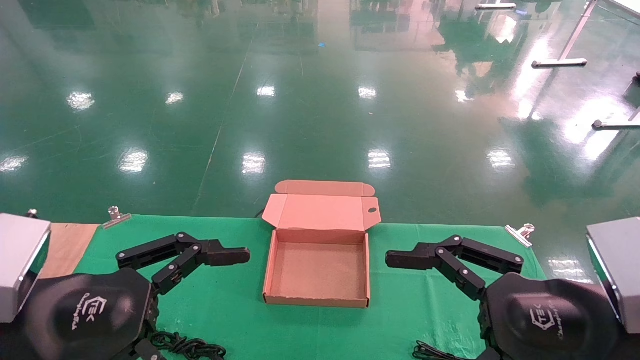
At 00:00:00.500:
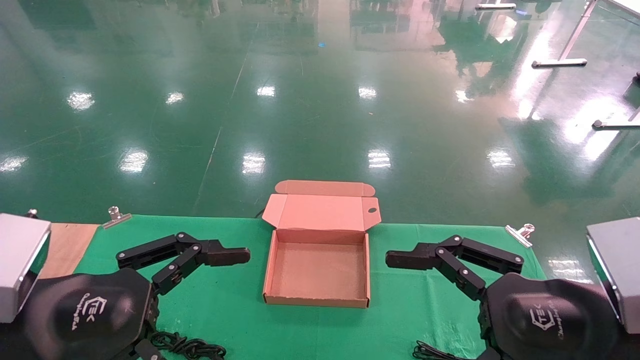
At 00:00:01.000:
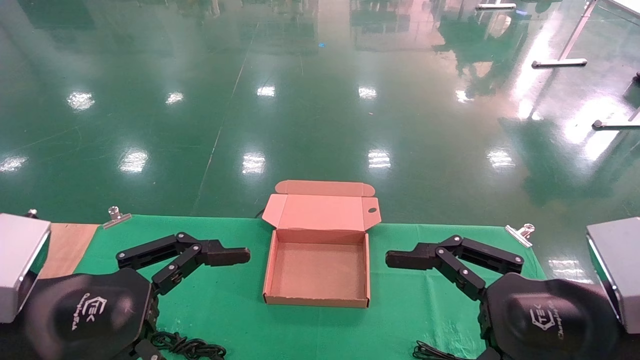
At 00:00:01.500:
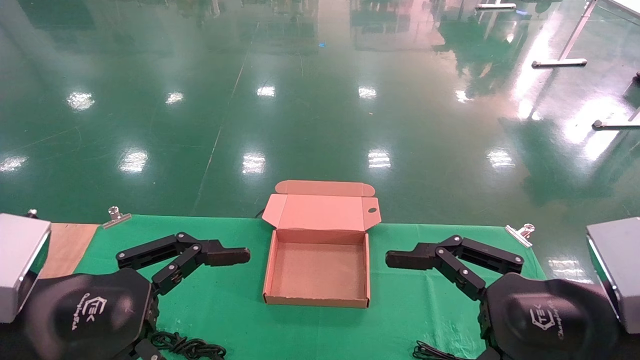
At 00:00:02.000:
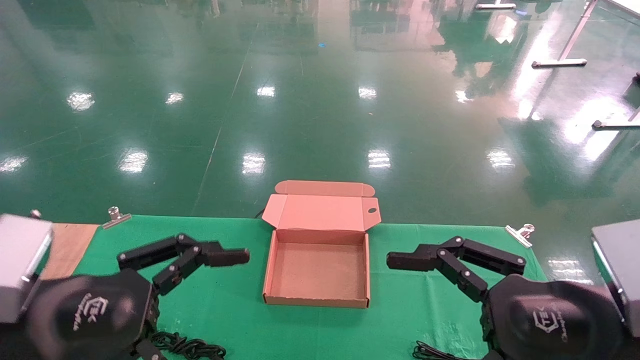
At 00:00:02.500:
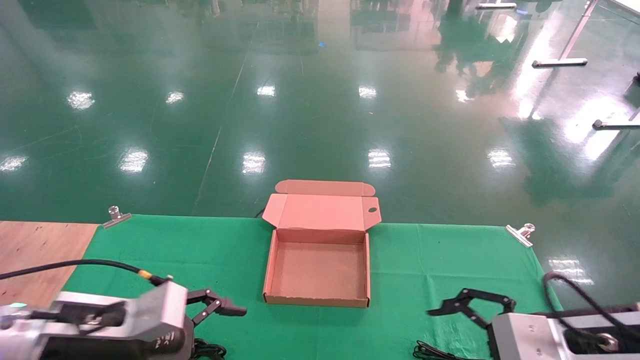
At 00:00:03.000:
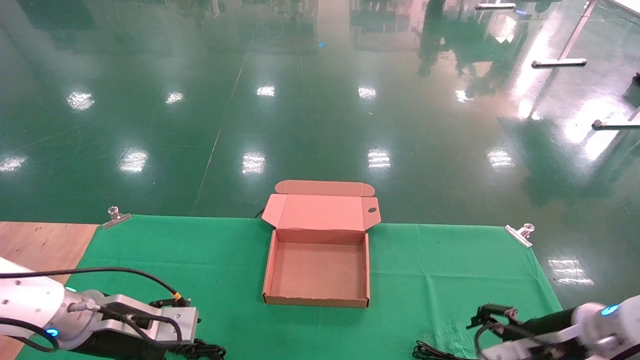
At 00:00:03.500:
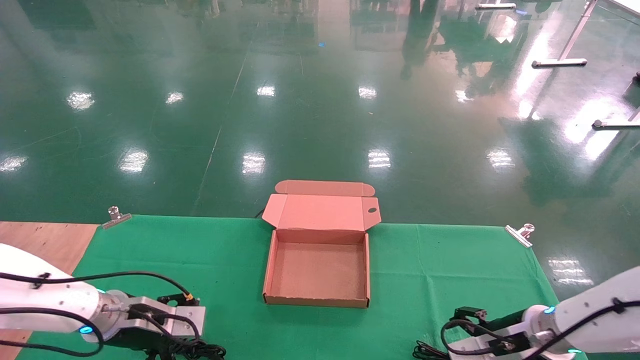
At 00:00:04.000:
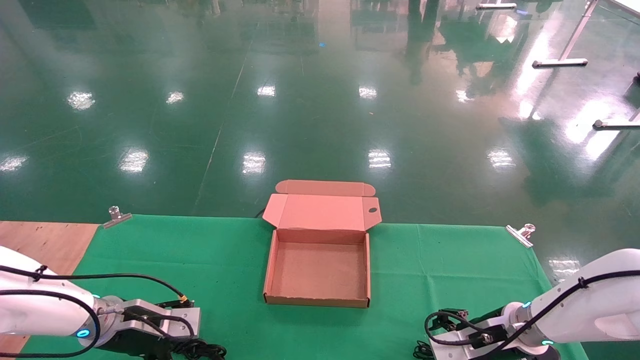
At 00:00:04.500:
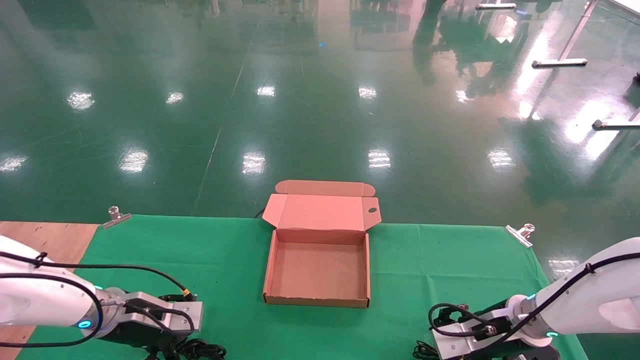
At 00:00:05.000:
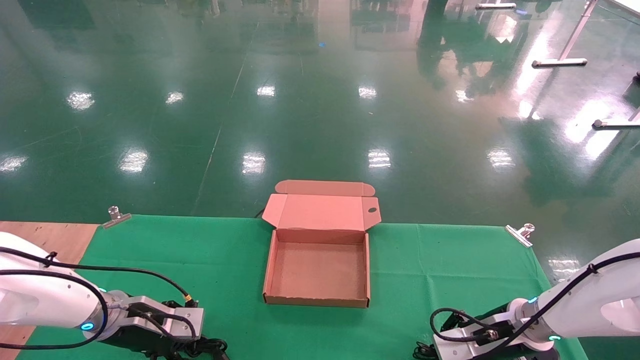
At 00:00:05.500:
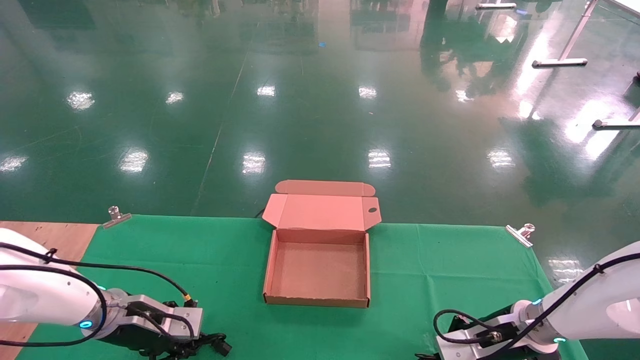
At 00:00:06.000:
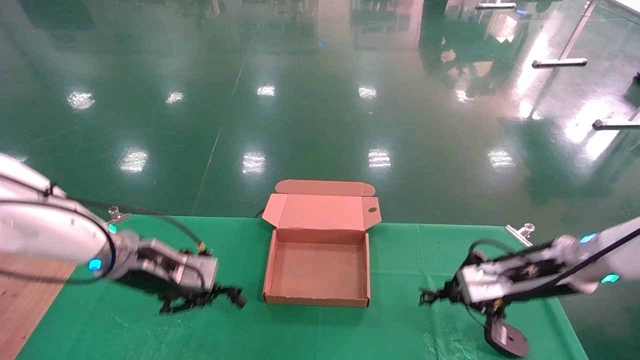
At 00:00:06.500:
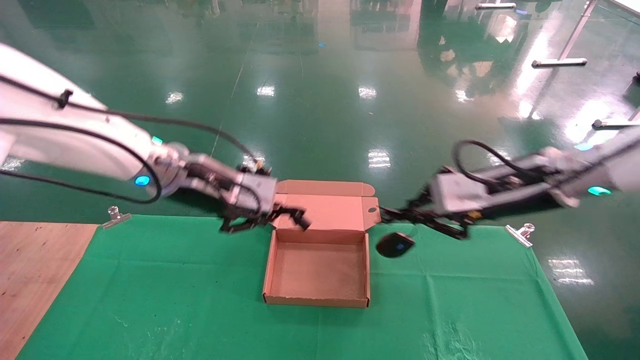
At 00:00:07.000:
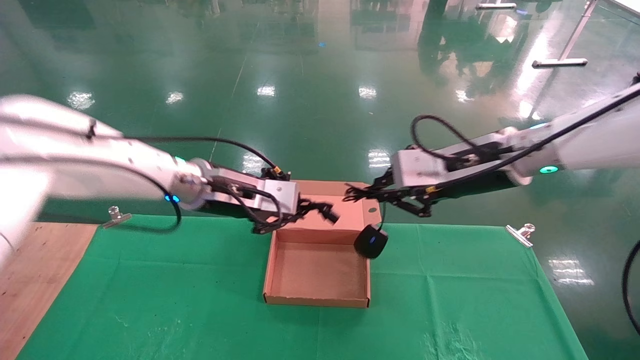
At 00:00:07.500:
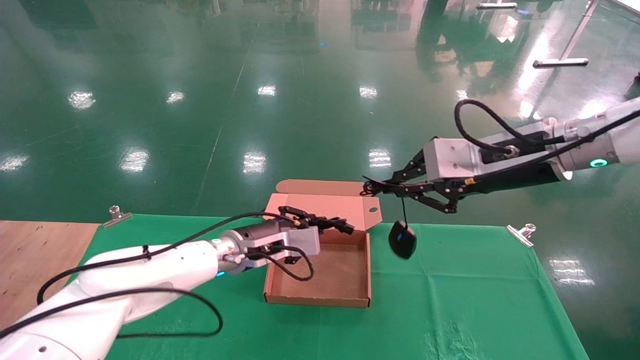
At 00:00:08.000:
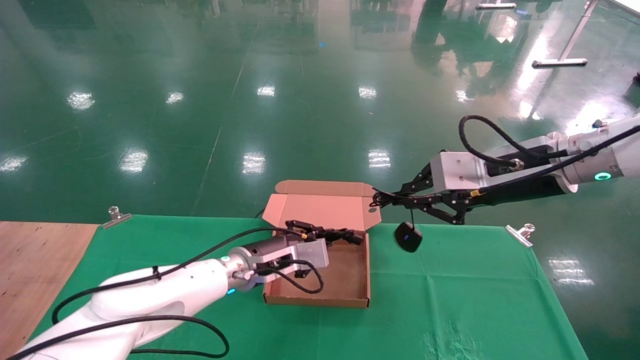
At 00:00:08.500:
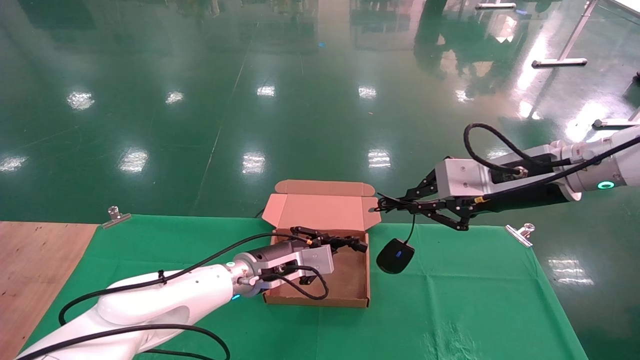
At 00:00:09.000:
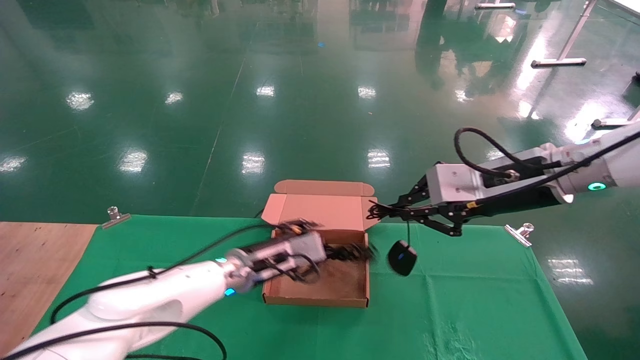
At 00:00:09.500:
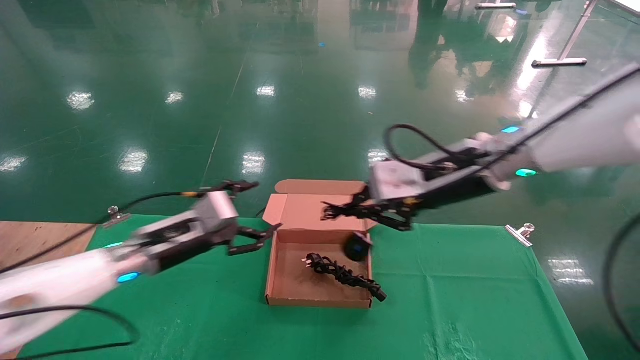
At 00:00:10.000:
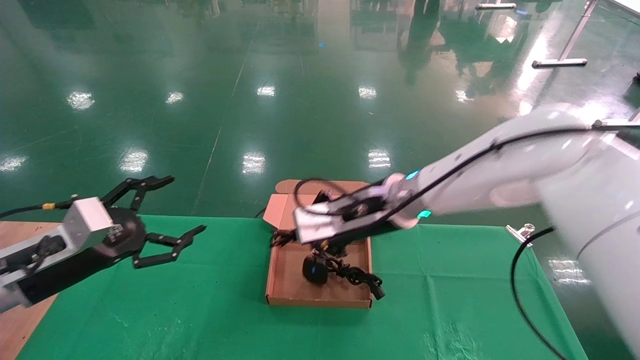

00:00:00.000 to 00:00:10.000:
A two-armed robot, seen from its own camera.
Step, 00:00:03.000 to 00:00:06.000: Grab and lift both the mouse and power cord from the accessory packaging area at the same time.
00:00:00.000 to 00:00:02.000: There are only small adjustments of the grippers.
00:00:02.000 to 00:00:04.000: The grippers both shift forward and downward by approximately 25 cm.
00:00:04.000 to 00:00:06.000: Both grippers travel together upward, roughly 10 cm. The left gripper closes up. Meanwhile the right gripper closes.
00:00:06.000 to 00:00:08.000: The right gripper shifts approximately 15 cm upward, while the left gripper moves to the right and downward, roughly 15 cm.
00:00:08.000 to 00:00:10.000: The left gripper travels to the left and backward by about 25 cm, and opens up; the right gripper is displaced to the left by roughly 15 cm.

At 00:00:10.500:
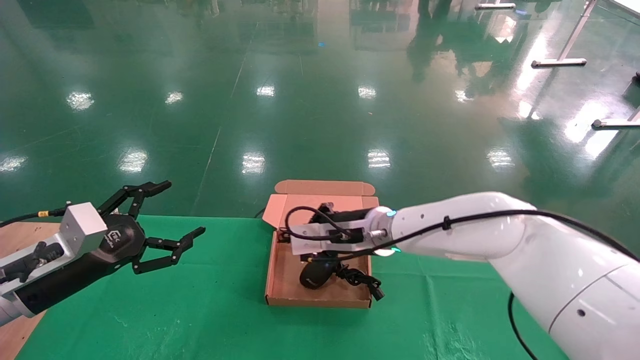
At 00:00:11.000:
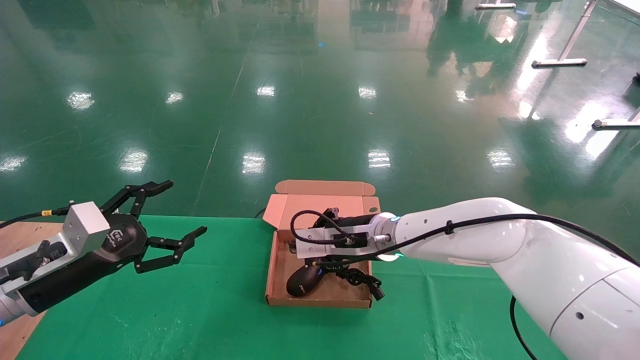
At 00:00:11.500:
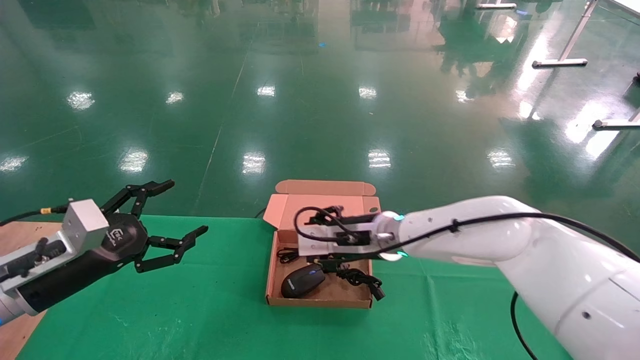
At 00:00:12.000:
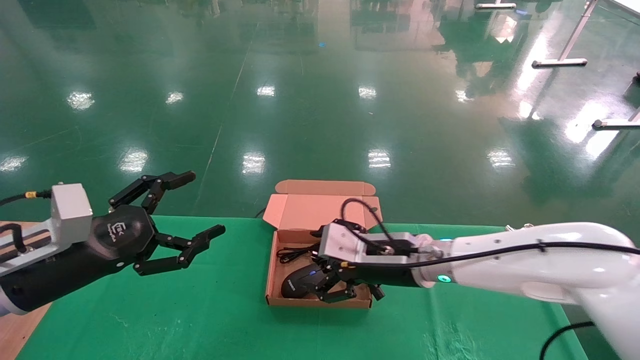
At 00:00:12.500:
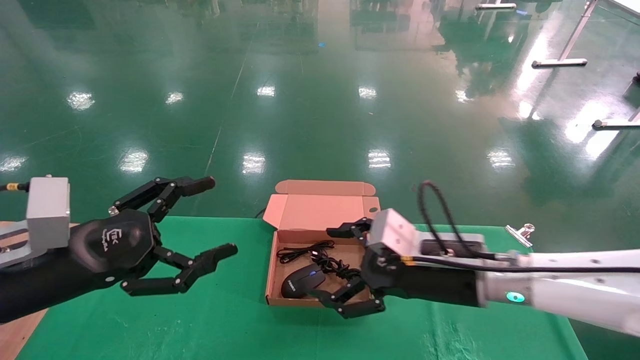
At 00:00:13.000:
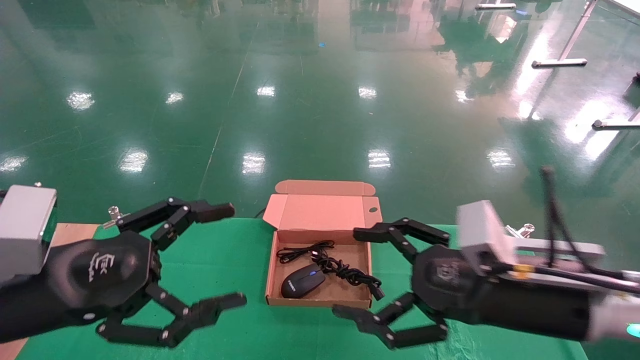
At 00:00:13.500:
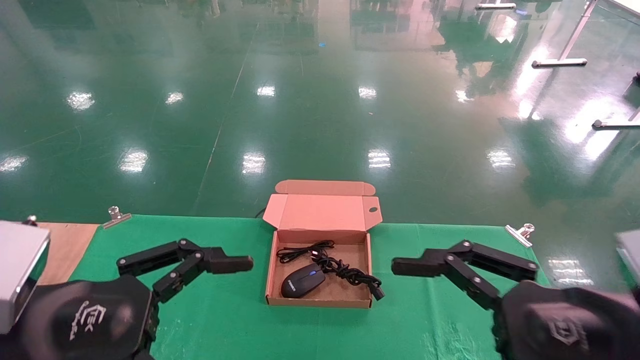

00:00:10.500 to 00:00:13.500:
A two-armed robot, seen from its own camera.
00:00:10.500 to 00:00:12.000: The right gripper goes some 5 cm to the right, and opens its fingers. Meanwhile the left gripper moves roughly 5 cm.
00:00:12.000 to 00:00:13.500: The right gripper shifts roughly 25 cm backward and to the right. The left gripper moves backward and to the right, about 15 cm.
